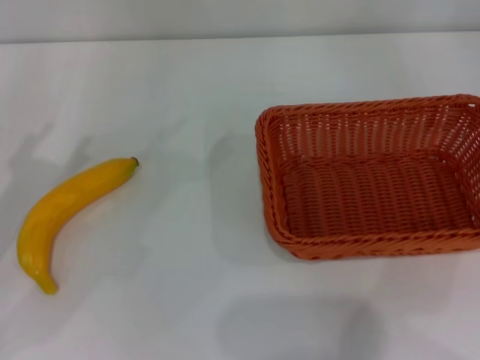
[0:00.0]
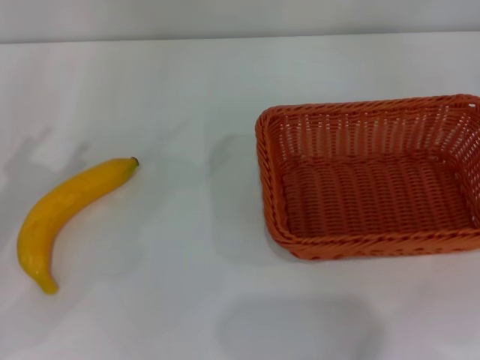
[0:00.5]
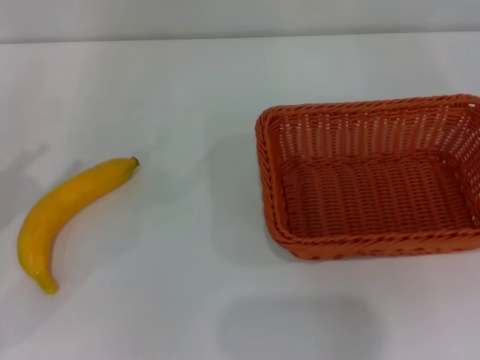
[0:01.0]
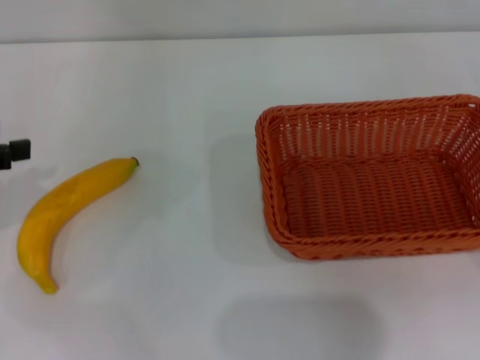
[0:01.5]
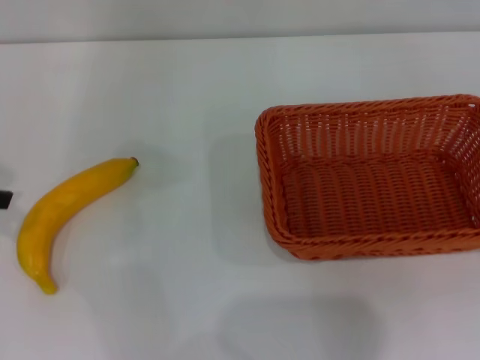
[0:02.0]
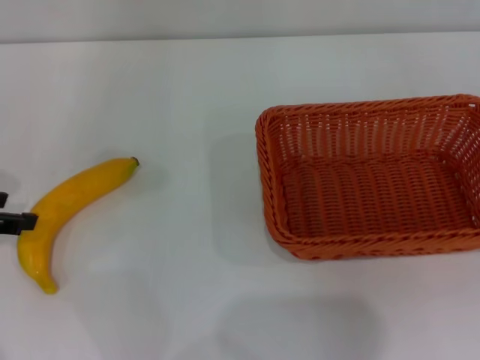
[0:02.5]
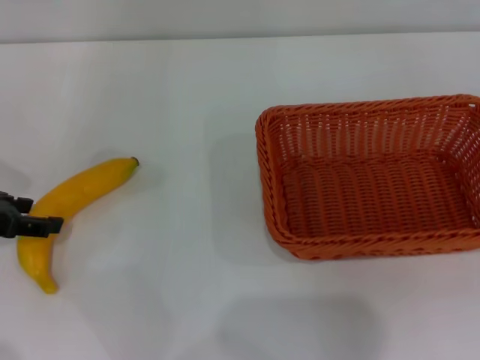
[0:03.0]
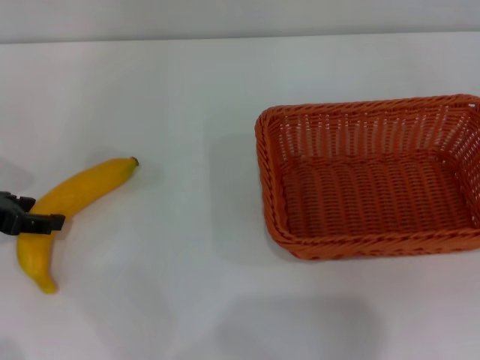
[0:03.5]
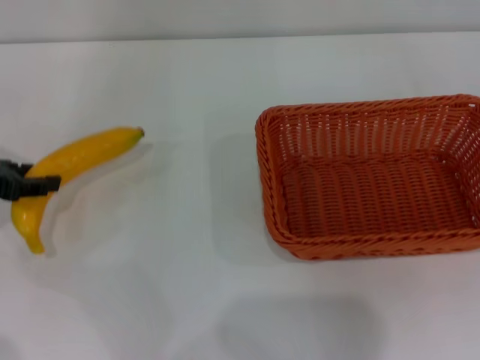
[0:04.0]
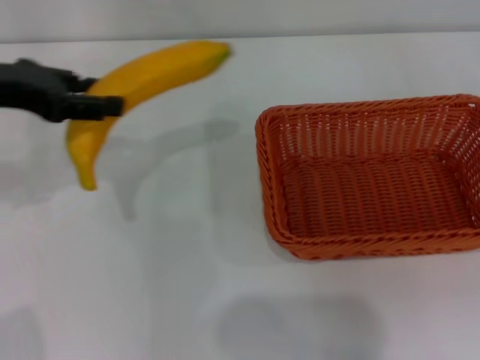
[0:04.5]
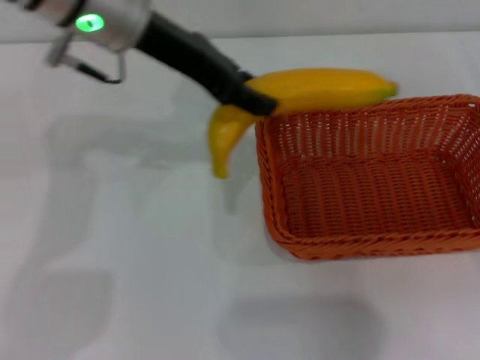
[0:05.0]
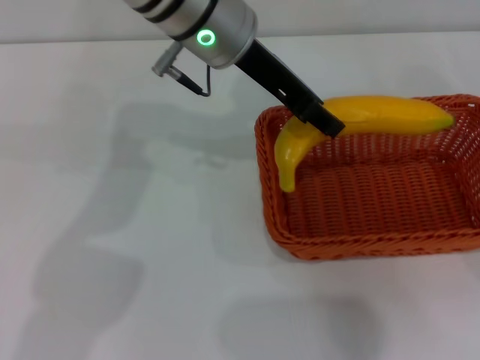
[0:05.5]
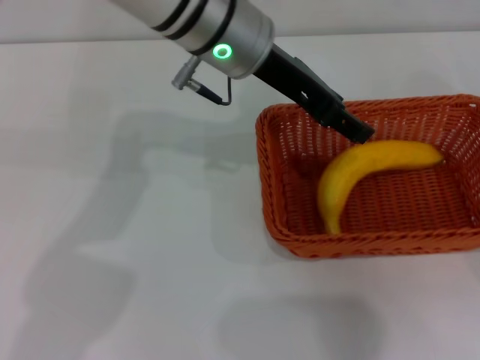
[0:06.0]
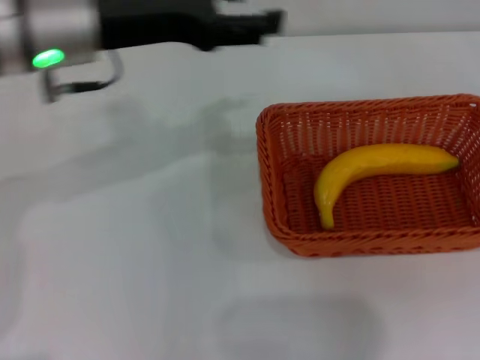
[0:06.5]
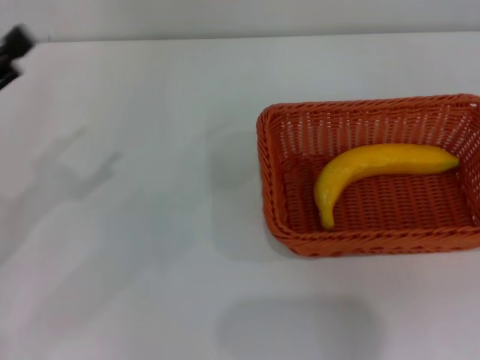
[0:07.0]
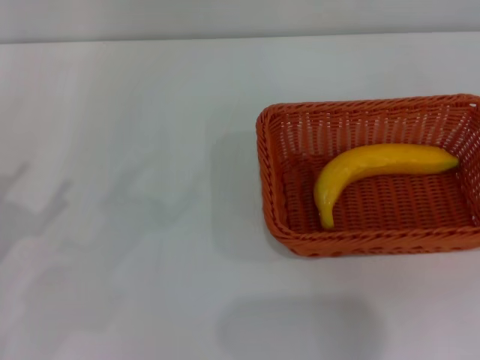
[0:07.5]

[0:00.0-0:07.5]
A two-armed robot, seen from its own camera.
Step, 0:01.0 to 0:04.0: Pick up the banana with the left gripper.
Step, 0:04.5 to 0:06.0: Place the banana into the light basket with the left gripper.
0:02.0 to 0:04.0: The left gripper travels downward by about 5 cm, and closes its fingers.
0:04.0 to 0:05.5: The left gripper travels to the right by roughly 30 cm.
0:05.5 to 0:07.5: The left gripper heads to the left, backward and downward, covering some 40 cm, and opens its fingers, while the right gripper heads backward, covering about 10 cm.
